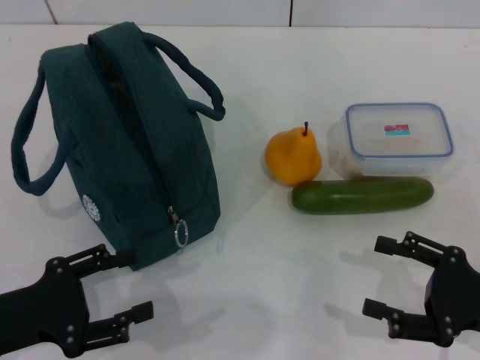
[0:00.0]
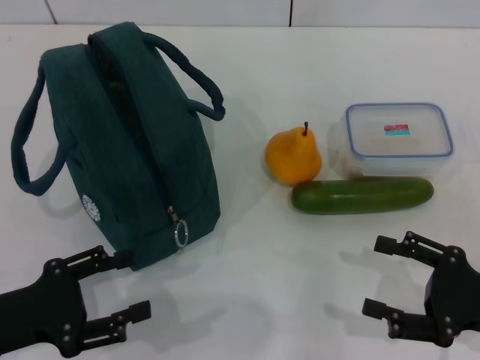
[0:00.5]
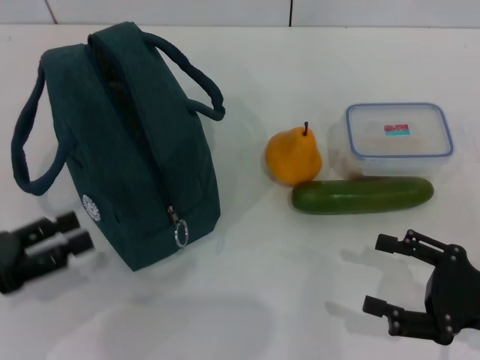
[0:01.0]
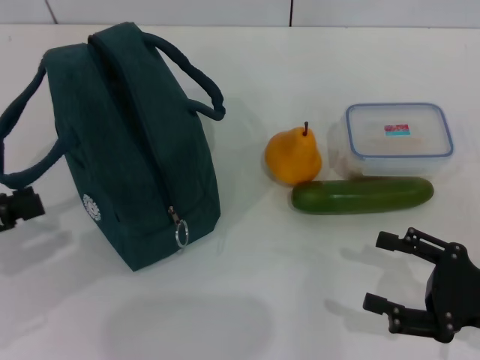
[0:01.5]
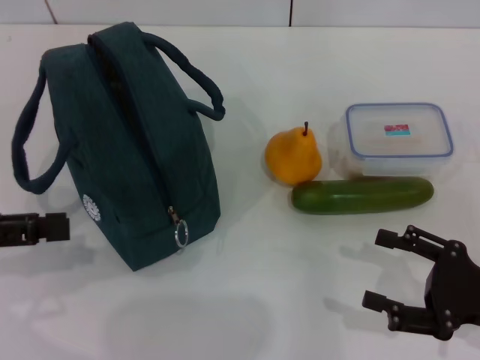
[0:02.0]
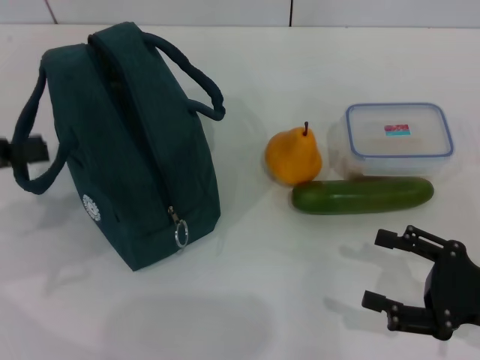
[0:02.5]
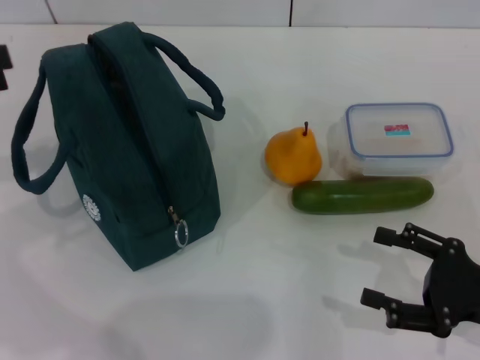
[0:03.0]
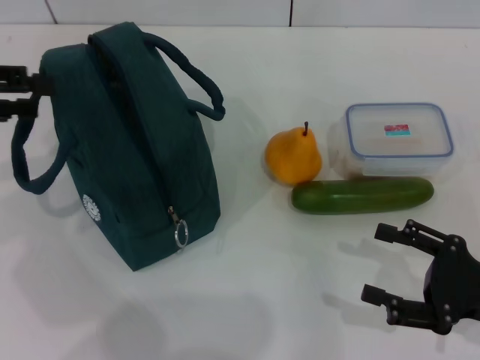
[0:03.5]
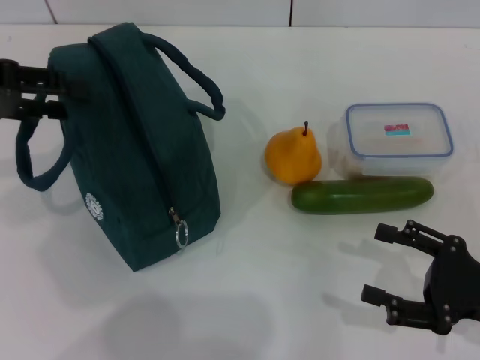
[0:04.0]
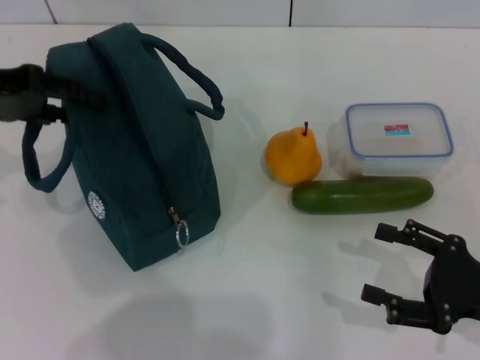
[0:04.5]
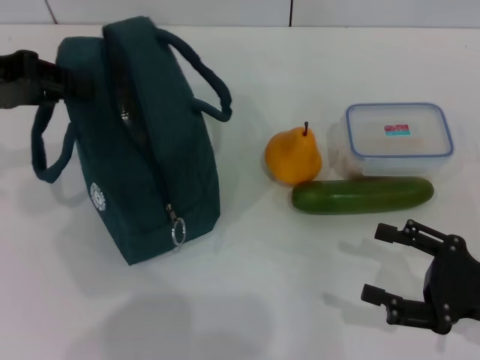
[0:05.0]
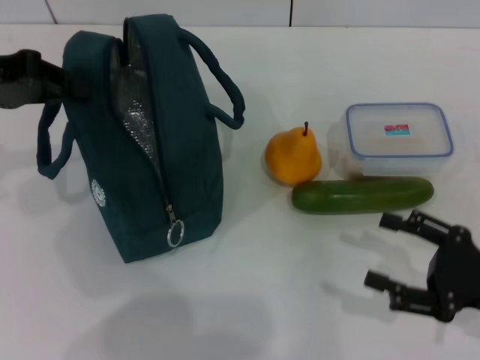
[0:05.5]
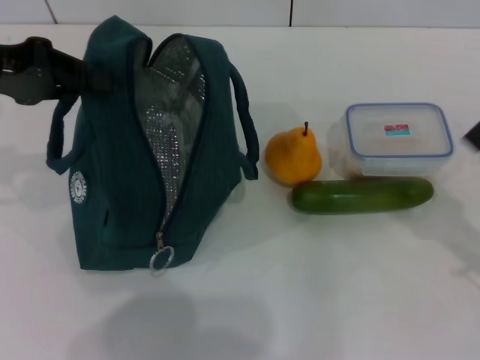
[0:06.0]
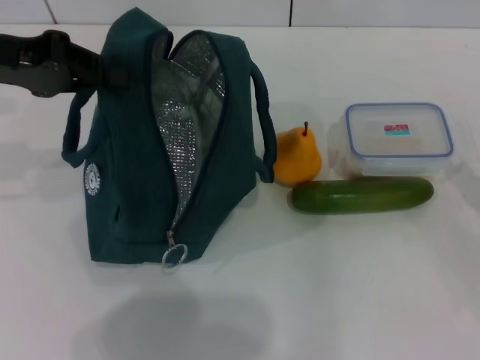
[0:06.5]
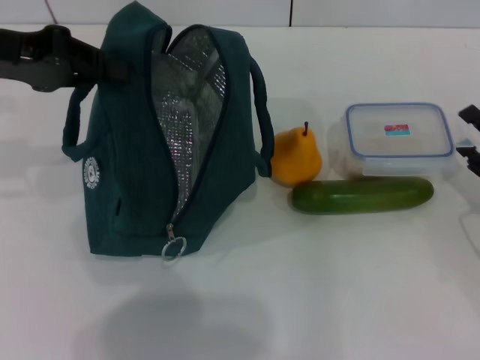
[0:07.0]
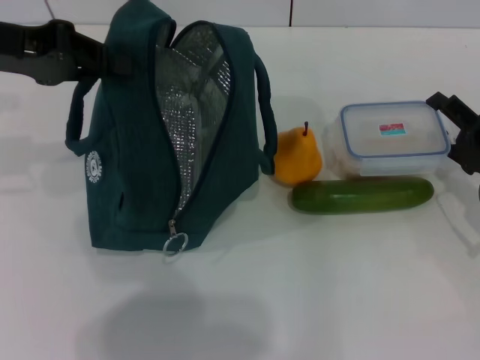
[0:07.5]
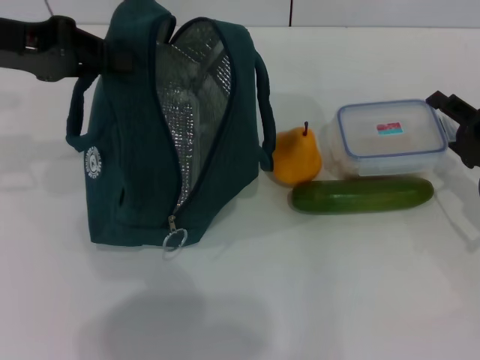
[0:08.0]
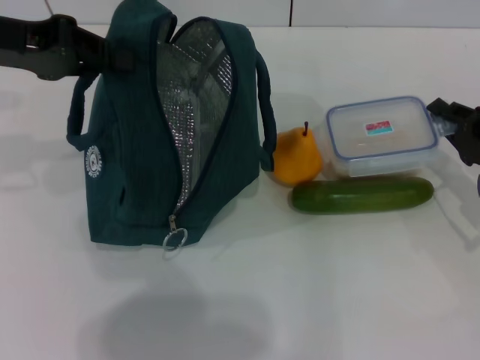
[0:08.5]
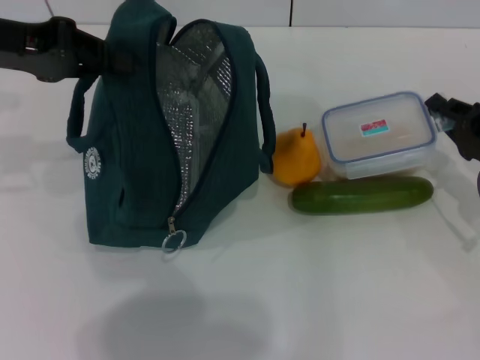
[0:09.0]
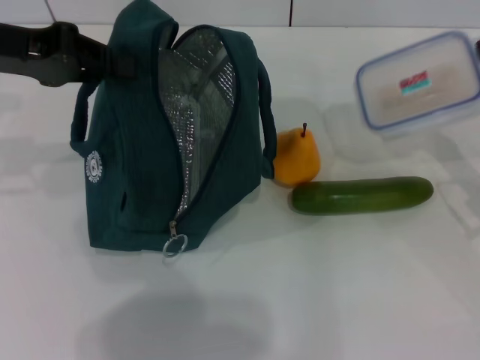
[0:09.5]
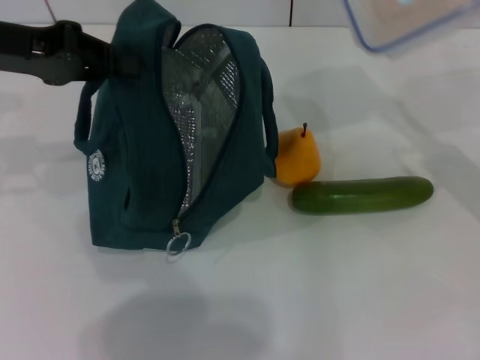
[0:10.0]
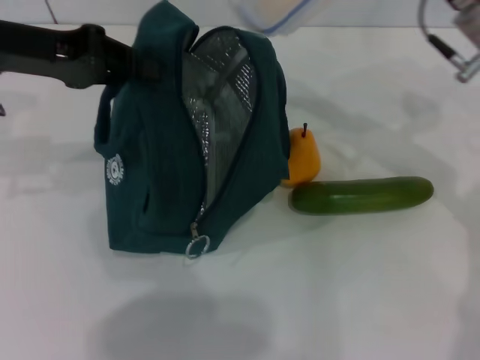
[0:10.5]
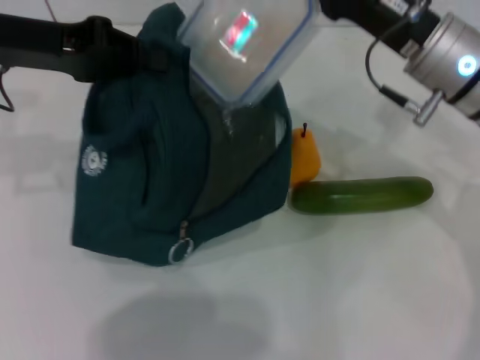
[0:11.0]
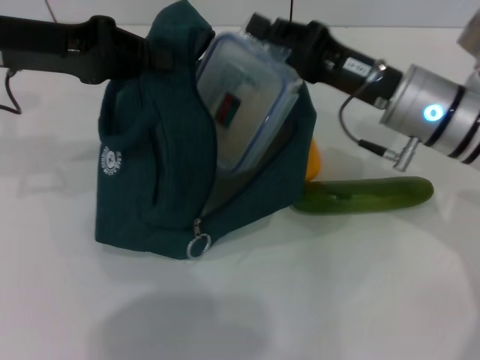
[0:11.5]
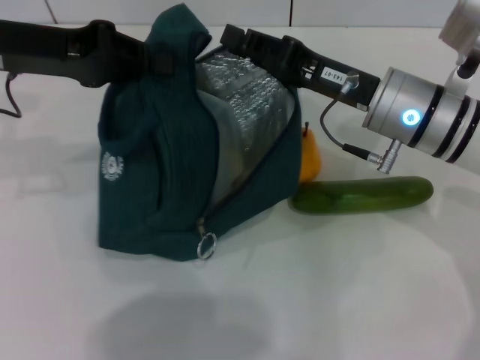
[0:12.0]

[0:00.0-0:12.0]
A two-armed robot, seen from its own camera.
Step, 0:00.0 to 0:06.0: Hold the lunch bag with your left hand.
Step, 0:06.5 to 0:08.5: Pick up the lunch box with your right hand.
Step, 0:09.0 to 0:11.5: Place the lunch box into the lunch bag with your right hand.
0:00.0 to 0:02.0: The left gripper shifts about 10 cm upward, to the left and forward.
0:02.0 to 0:04.0: The left gripper shifts roughly 10 cm forward and upward.
0:04.0 to 0:06.0: The left gripper closes.
0:06.0 to 0:08.0: The right gripper heads forward, covering about 10 cm.
0:08.0 to 0:10.0: The right gripper heads upward, covering about 10 cm, and closes up.
0:10.0 to 0:12.0: The right gripper is displaced to the left by some 15 cm.

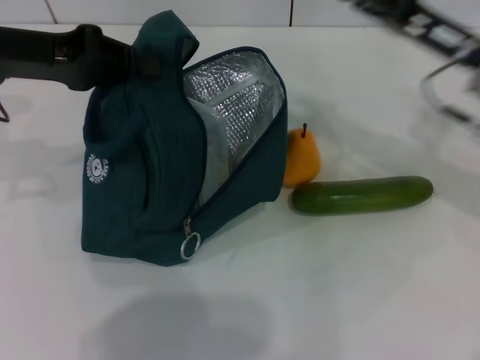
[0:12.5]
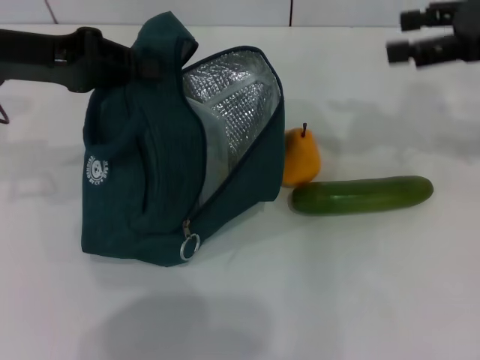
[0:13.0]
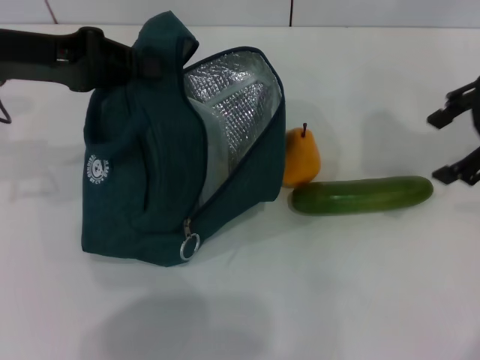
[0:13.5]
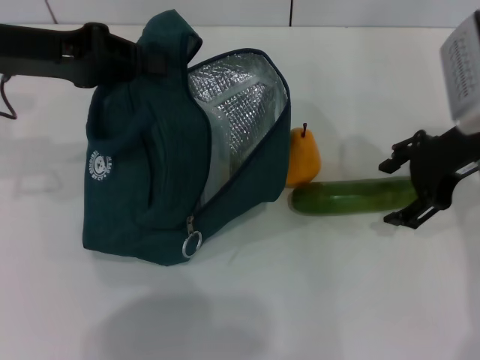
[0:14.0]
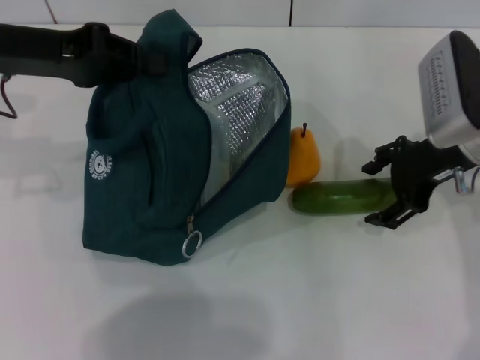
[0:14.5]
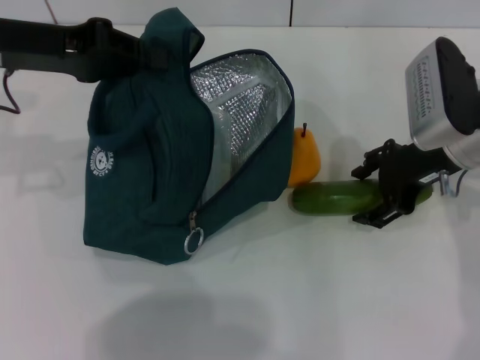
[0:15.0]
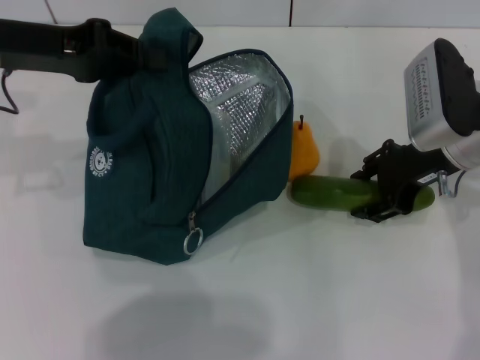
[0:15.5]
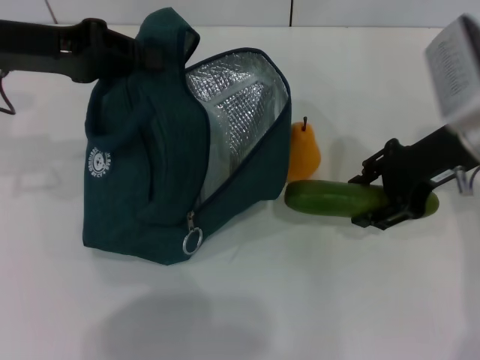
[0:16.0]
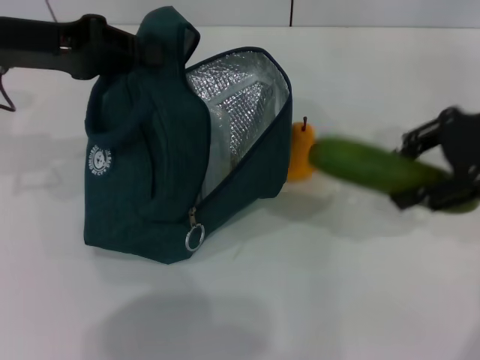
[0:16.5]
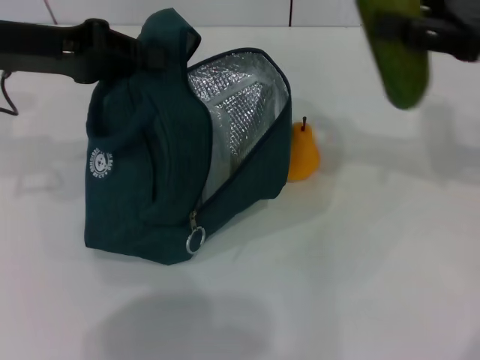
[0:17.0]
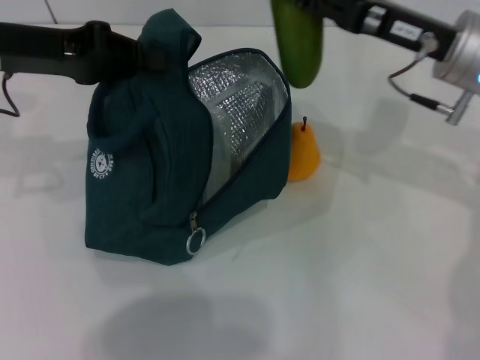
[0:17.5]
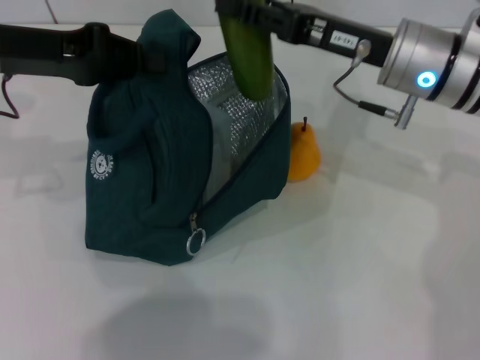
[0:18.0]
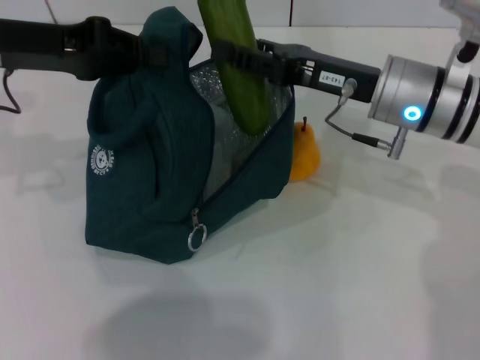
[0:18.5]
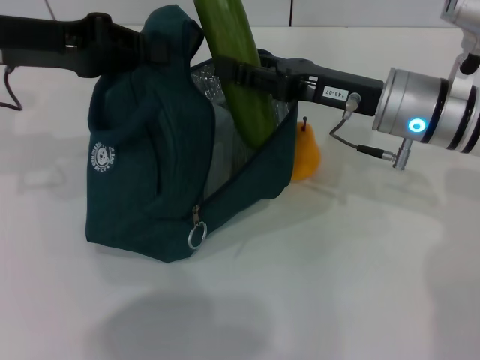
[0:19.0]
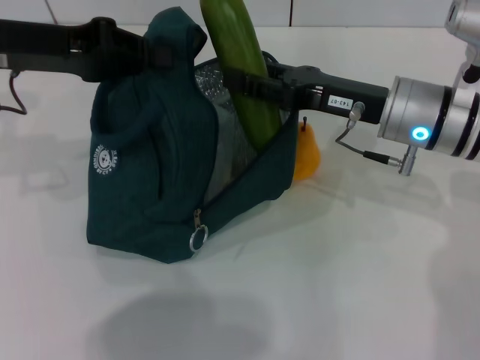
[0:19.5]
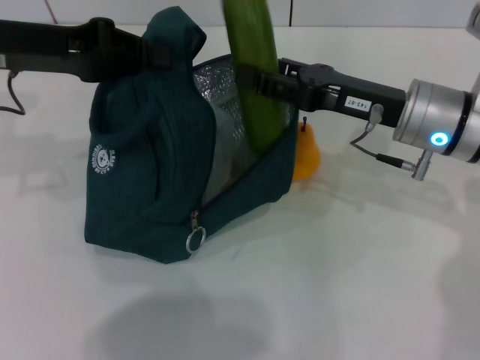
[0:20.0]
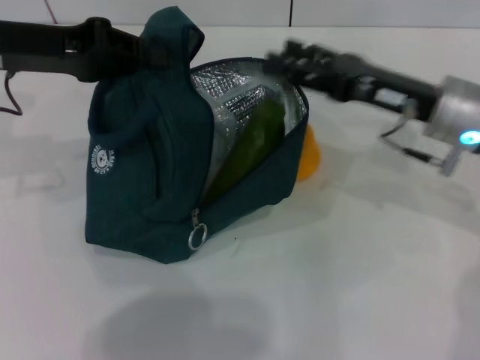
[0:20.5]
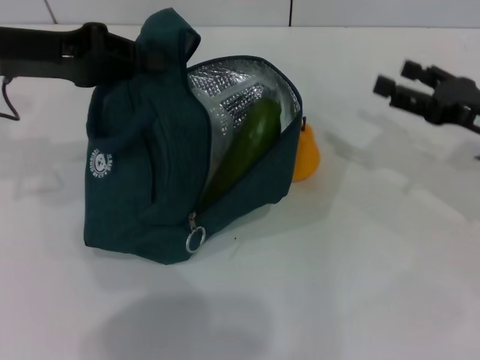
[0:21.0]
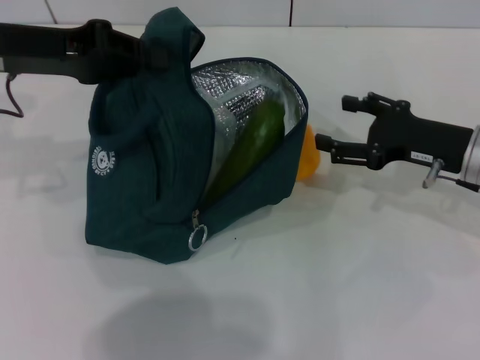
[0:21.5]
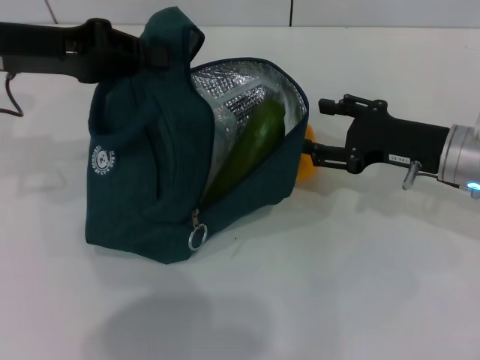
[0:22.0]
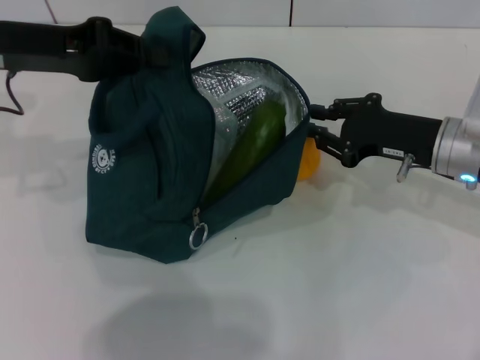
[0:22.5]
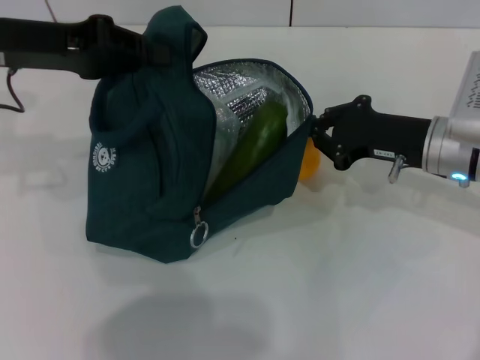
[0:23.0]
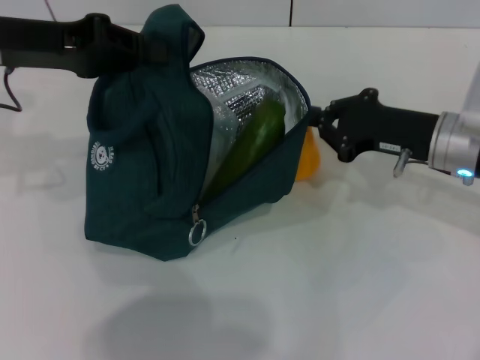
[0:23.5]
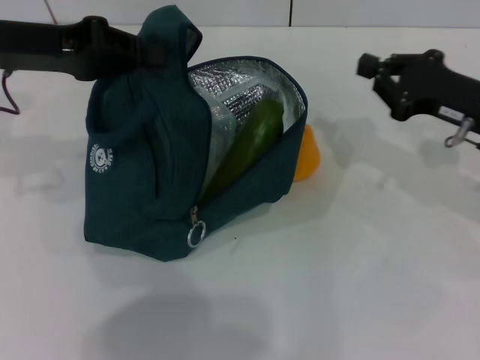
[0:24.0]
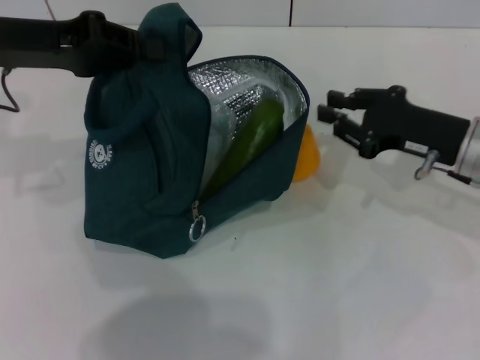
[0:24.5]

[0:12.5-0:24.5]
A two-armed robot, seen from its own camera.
Step, 0:12.5 to 0:15.5: Pick up the cucumber with your right hand.
Step, 0:16.0 to 0:20.0: Put the cucumber into the lunch bag with your right hand.
0:12.5 to 0:14.5: The right gripper moves about 10 cm upward and comes back.
0:14.5 to 0:16.5: The right gripper shifts roughly 10 cm upward and to the right.
0:16.5 to 0:18.5: The right gripper moves to the left and downward, roughly 15 cm.
0:18.5 to 0:20.5: The right gripper moves to the right, roughly 5 cm.
0:20.5 to 0:22.5: The right gripper goes to the right and returns, about 10 cm each way, and closes its fingers.
0:22.5 to 0:24.5: The grippers make only small movements.

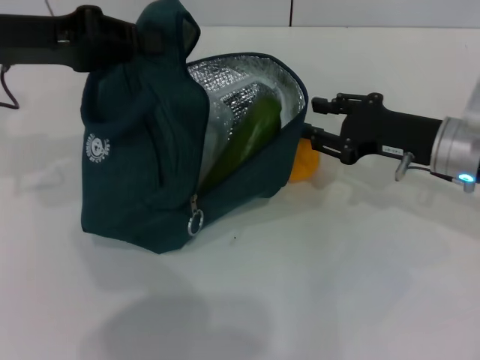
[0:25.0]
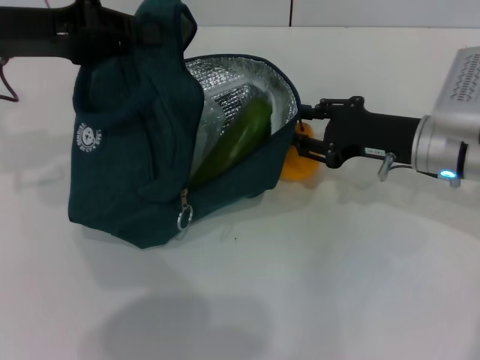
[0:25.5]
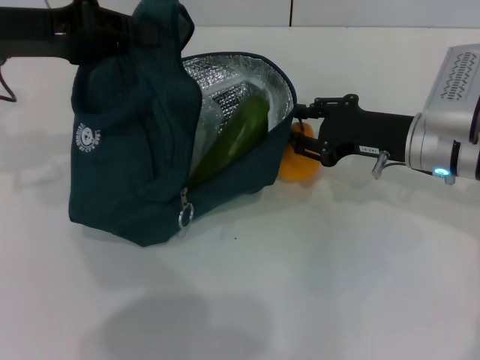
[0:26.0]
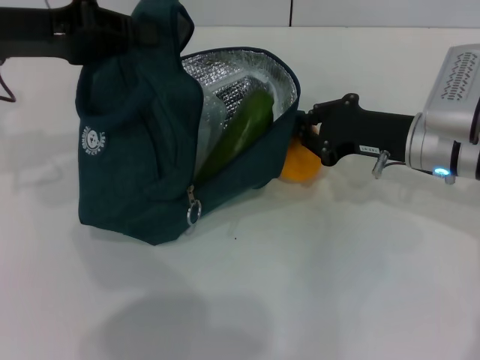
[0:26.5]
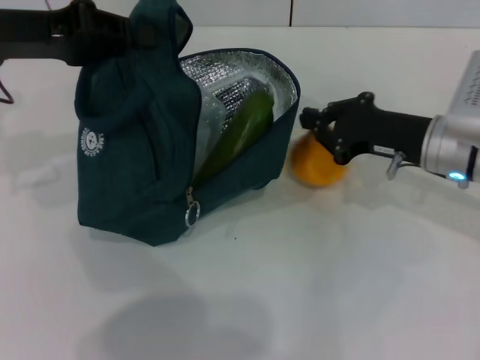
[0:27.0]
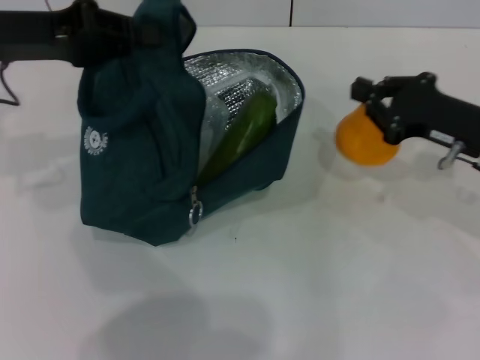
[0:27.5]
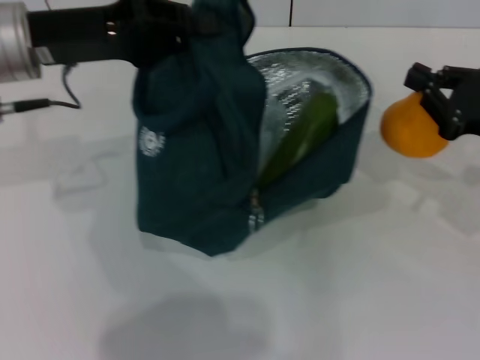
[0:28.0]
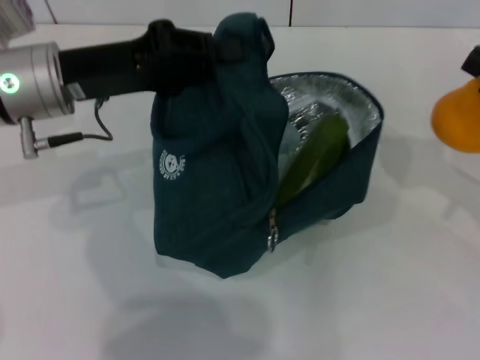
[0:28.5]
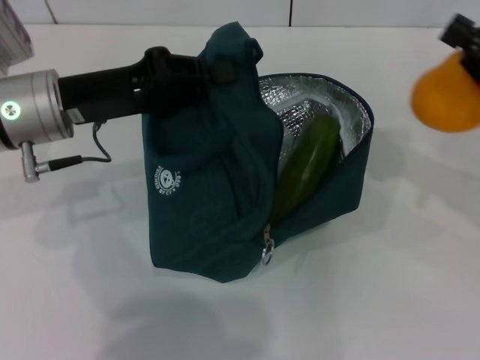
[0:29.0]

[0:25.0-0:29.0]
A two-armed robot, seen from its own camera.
0:25.0 to 0:27.0: The right gripper closes its fingers.
0:27.0 to 0:29.0: The right gripper shifts about 10 cm to the right and upward. The left gripper shifts approximately 10 cm downward and to the right.
